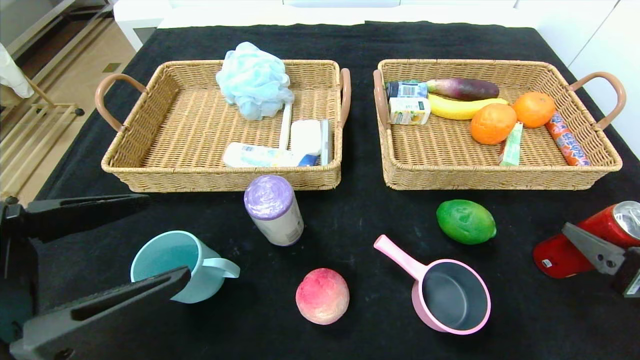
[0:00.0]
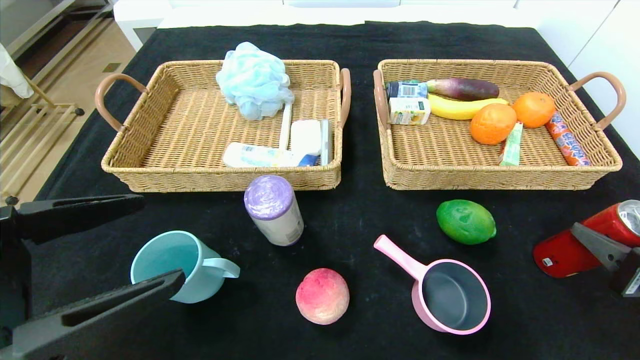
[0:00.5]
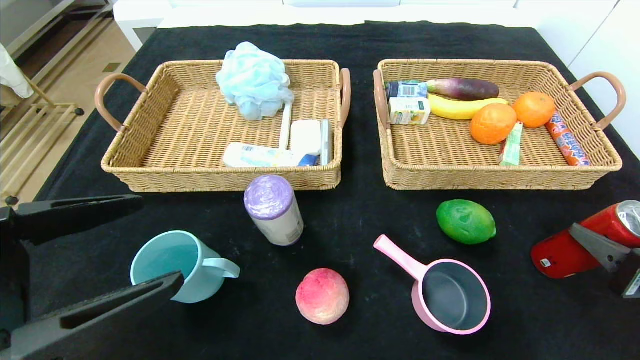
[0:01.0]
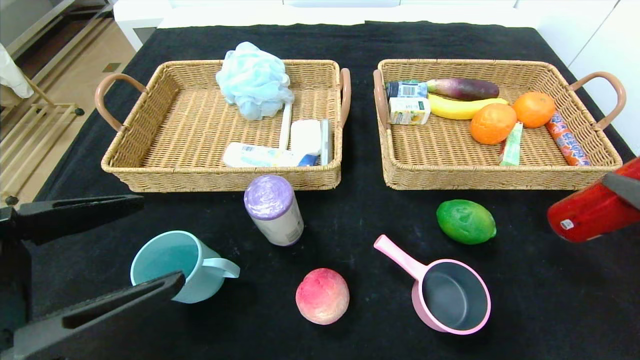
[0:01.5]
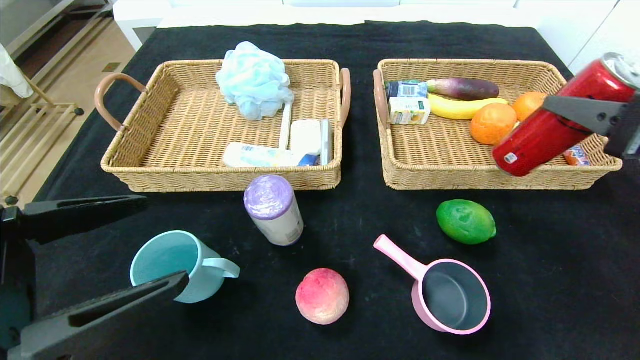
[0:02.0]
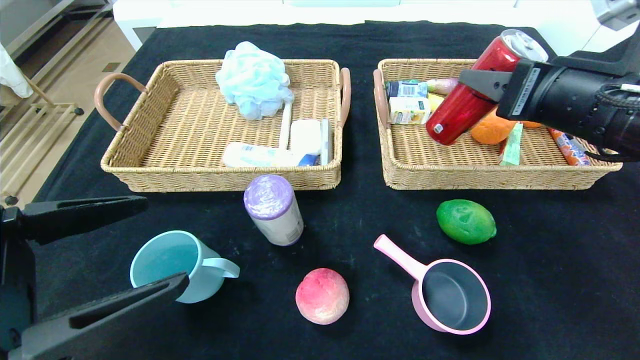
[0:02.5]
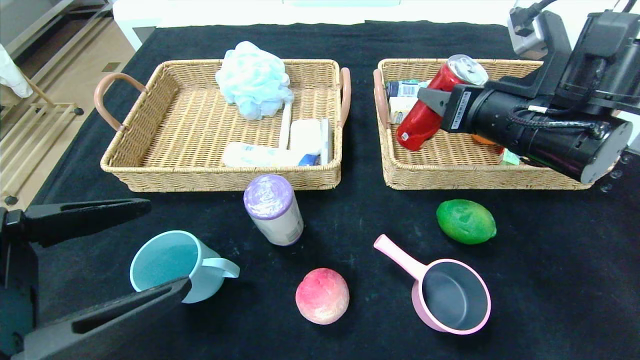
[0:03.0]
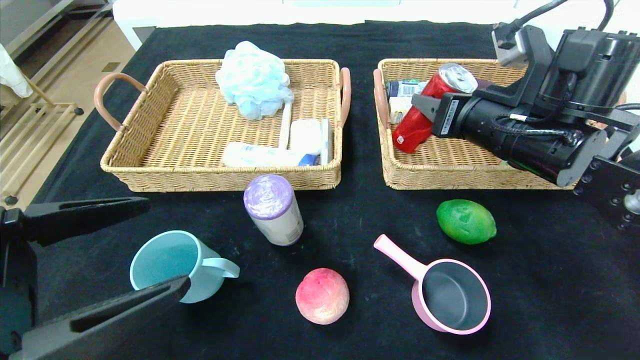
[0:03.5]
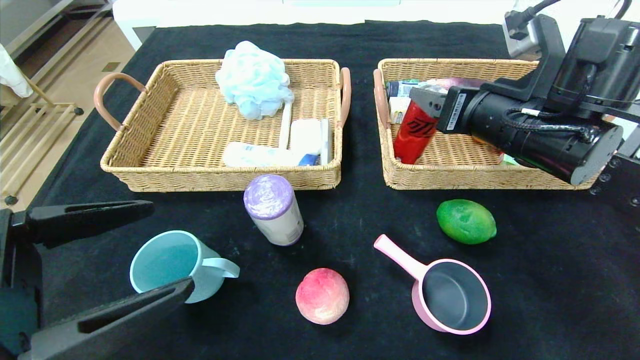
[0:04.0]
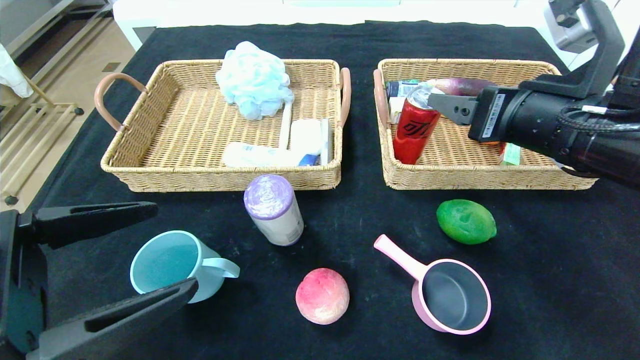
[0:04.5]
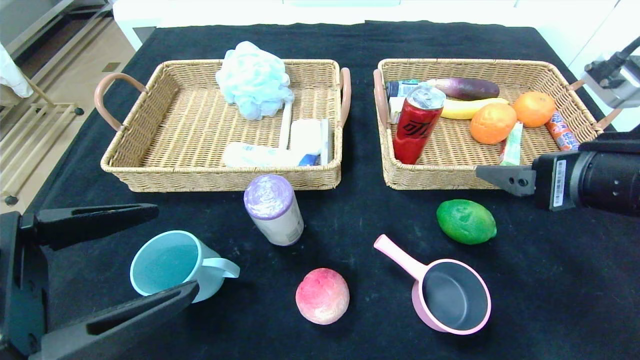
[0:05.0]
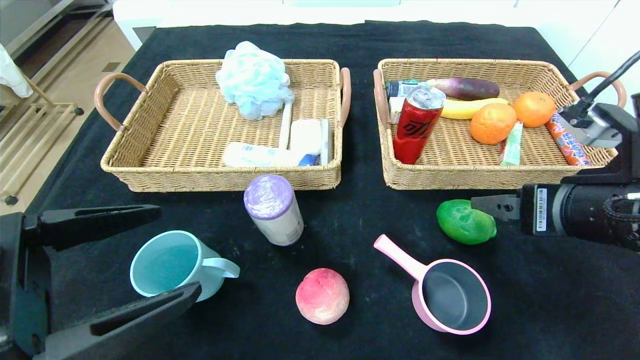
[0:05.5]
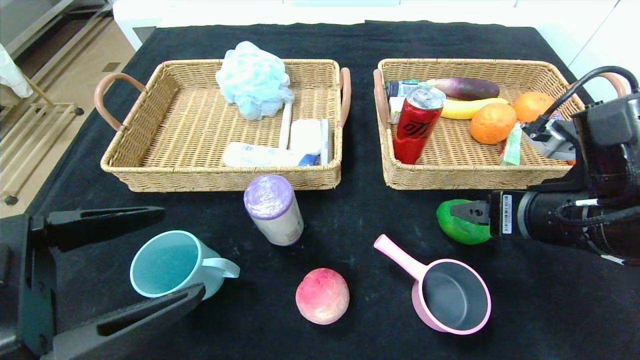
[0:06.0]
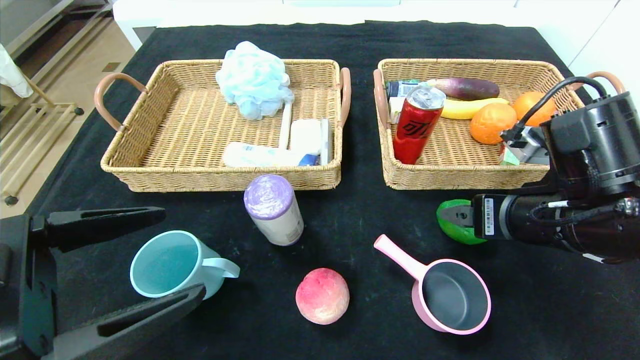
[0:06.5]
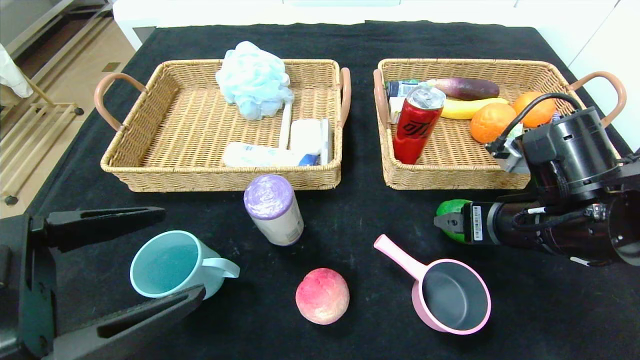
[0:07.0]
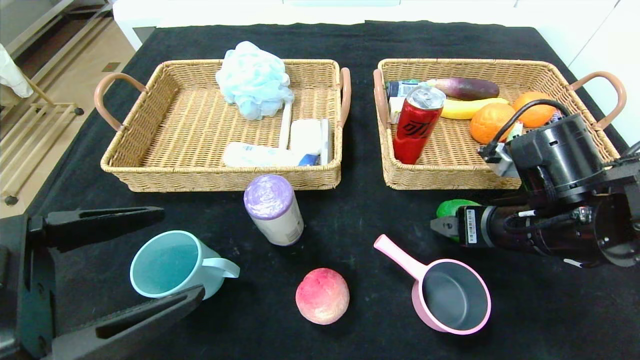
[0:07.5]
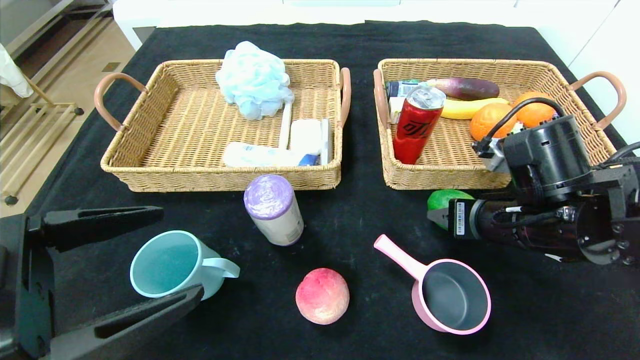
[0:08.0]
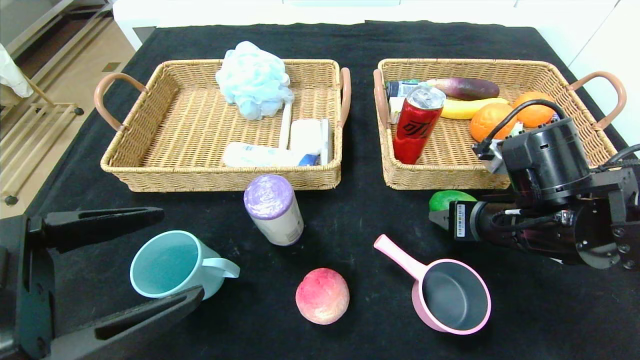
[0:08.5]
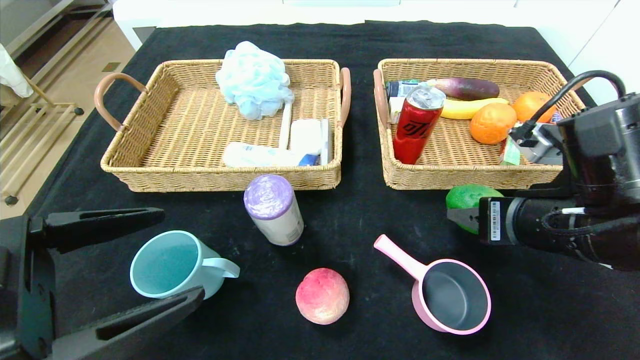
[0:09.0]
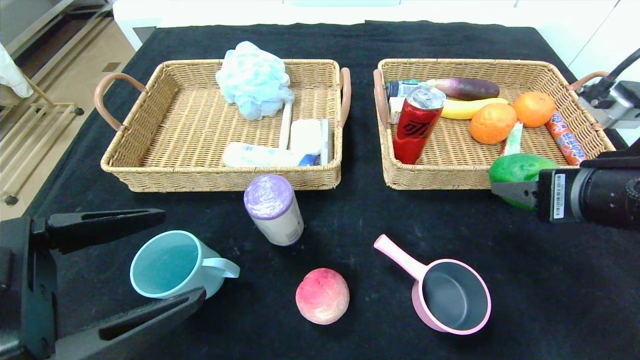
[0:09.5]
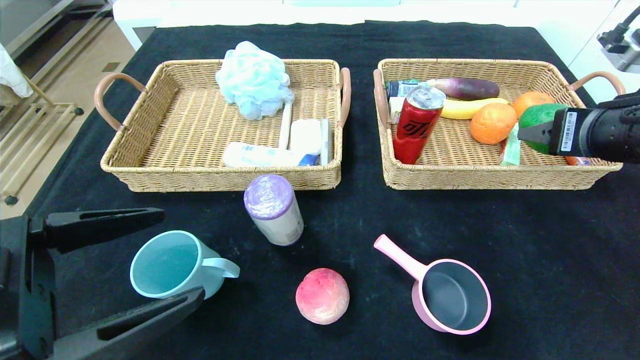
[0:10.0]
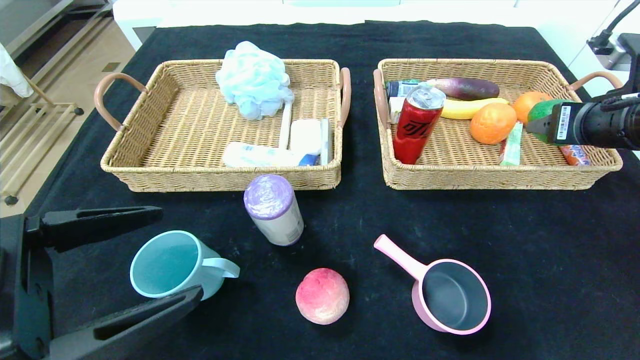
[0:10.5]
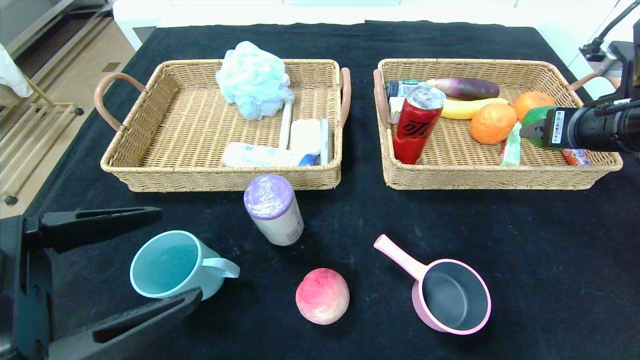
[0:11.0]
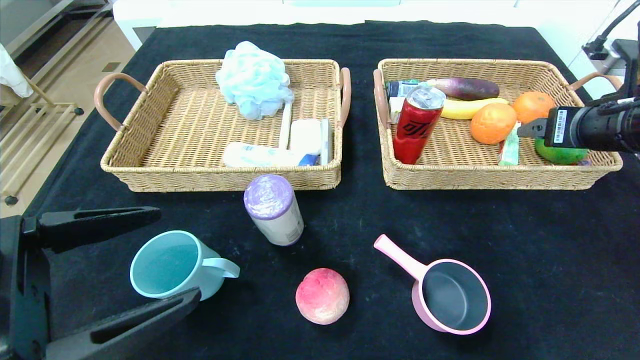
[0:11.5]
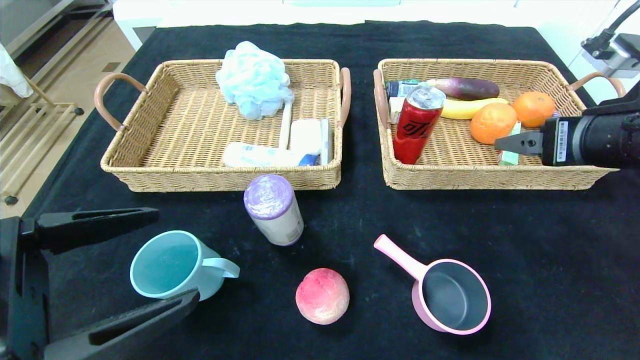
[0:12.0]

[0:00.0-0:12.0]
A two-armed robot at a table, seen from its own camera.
Step, 0:00.0 to 0:05.0: Pick up the canned cola and put it in the right basket.
0:00.0 to 0:02.0: The right gripper travels upward by some 15 cm.
0:02.0 to 0:04.0: The right gripper shifts about 15 cm forward and to the left.
0:04.0 to 0:06.0: The right gripper is displaced backward by approximately 10 cm.
0:06.0 to 0:08.0: The right gripper changes place by roughly 5 cm.
0:08.0 to 0:10.0: The right gripper is displaced upward and to the right by about 15 cm.
0:10.0 to 0:12.0: The grippers move only a little.

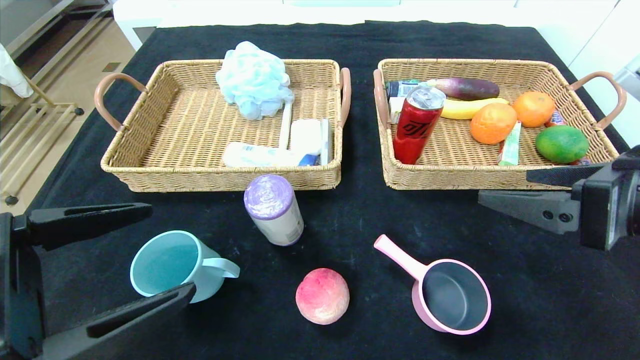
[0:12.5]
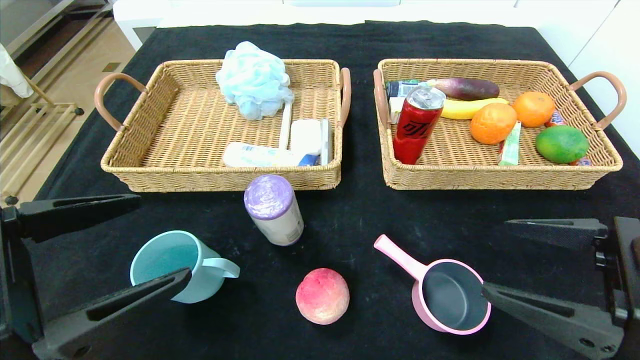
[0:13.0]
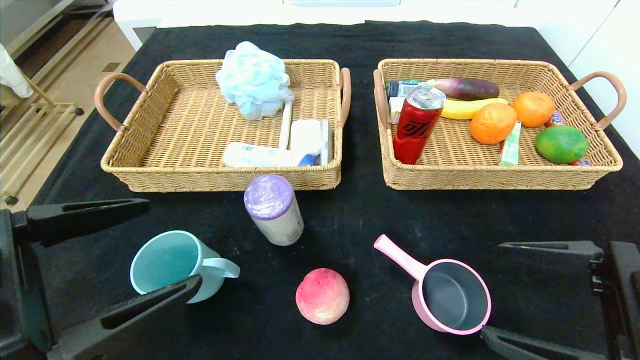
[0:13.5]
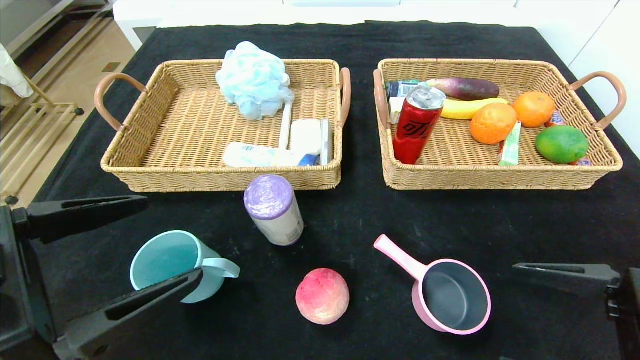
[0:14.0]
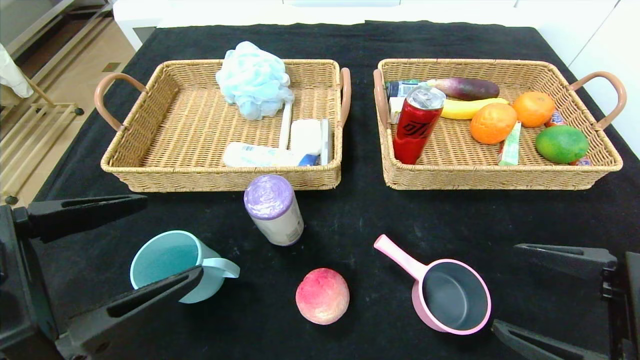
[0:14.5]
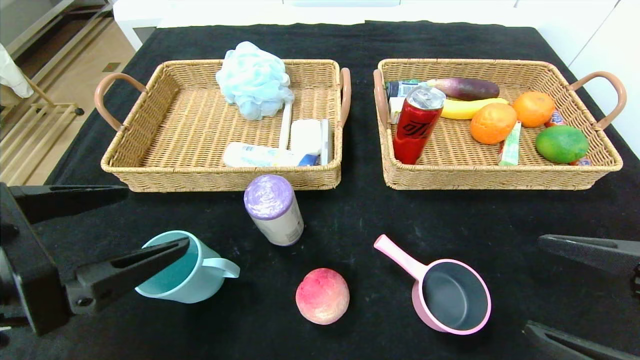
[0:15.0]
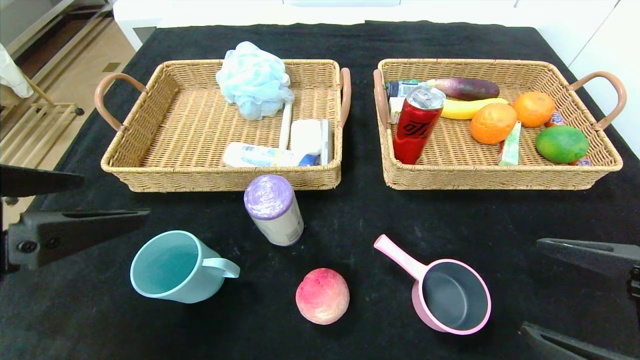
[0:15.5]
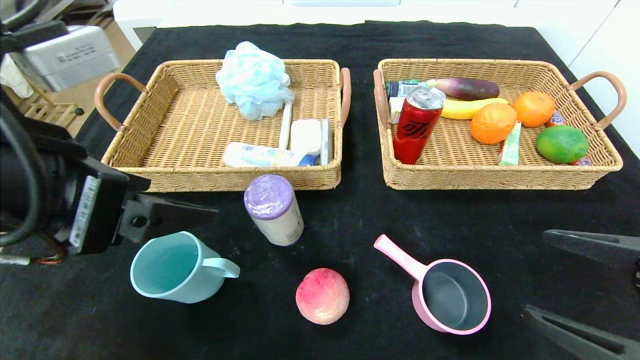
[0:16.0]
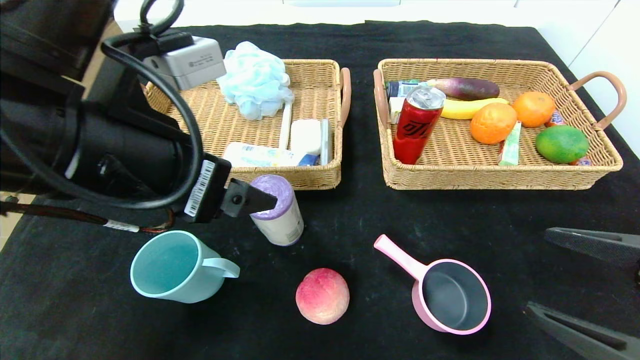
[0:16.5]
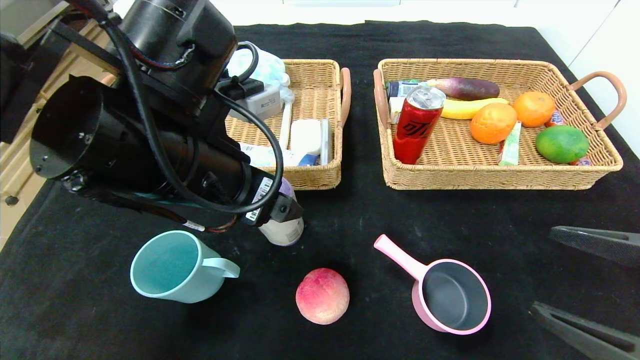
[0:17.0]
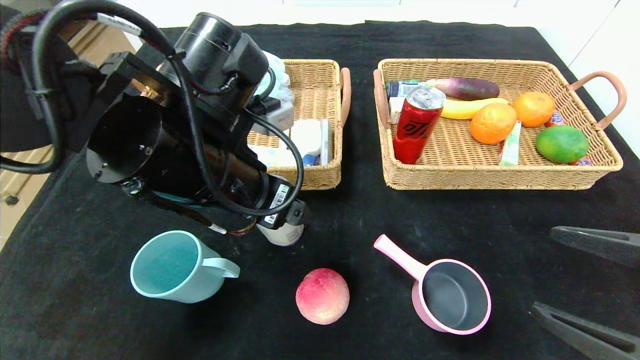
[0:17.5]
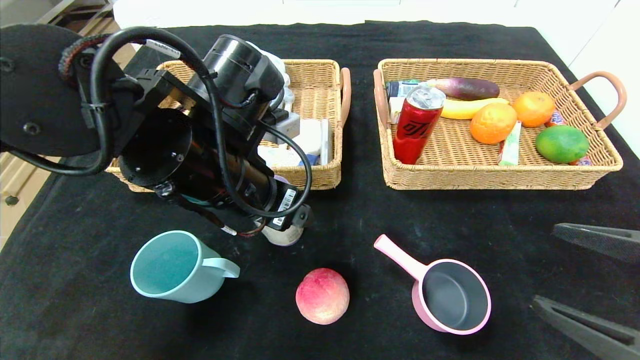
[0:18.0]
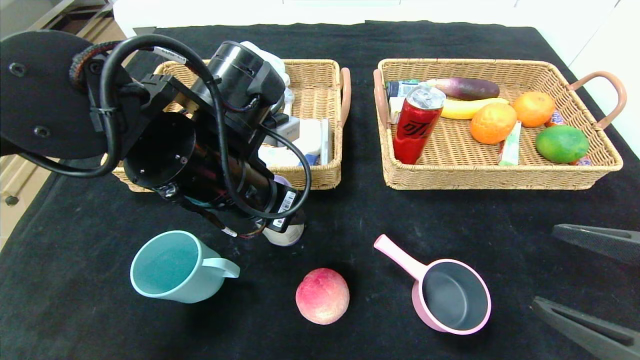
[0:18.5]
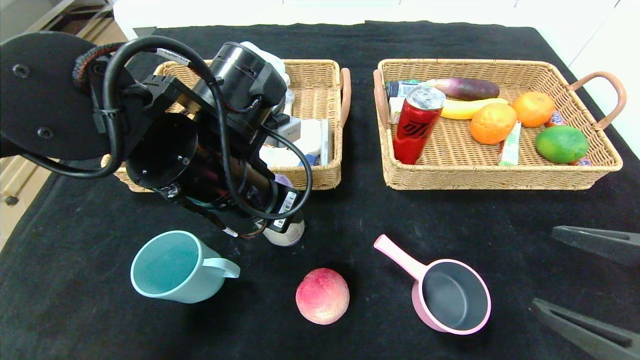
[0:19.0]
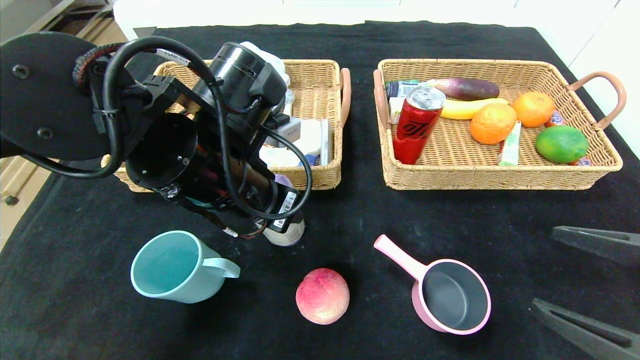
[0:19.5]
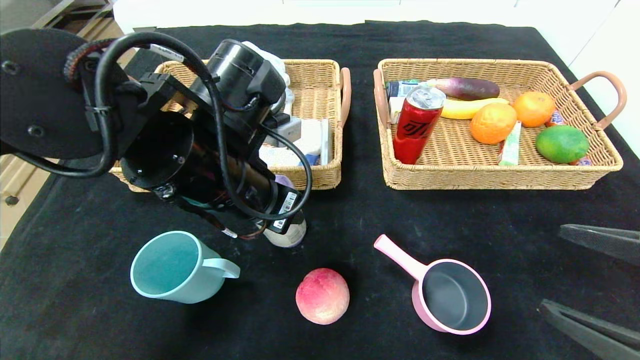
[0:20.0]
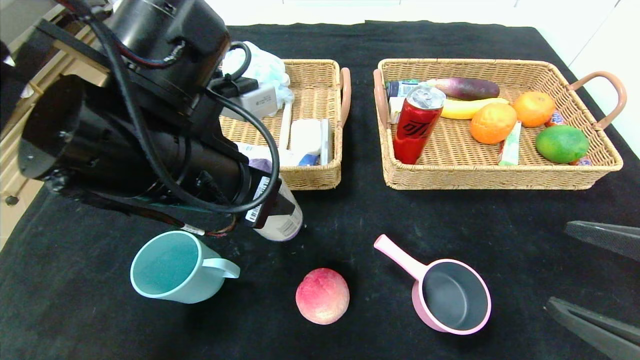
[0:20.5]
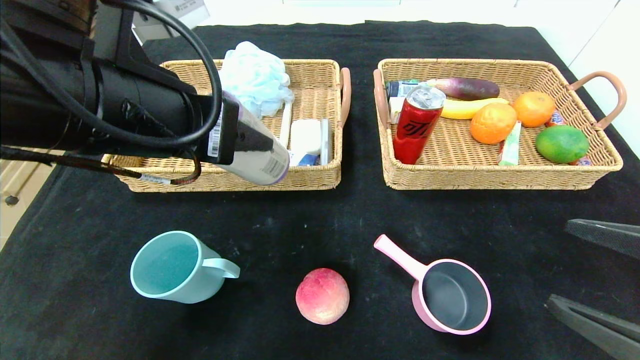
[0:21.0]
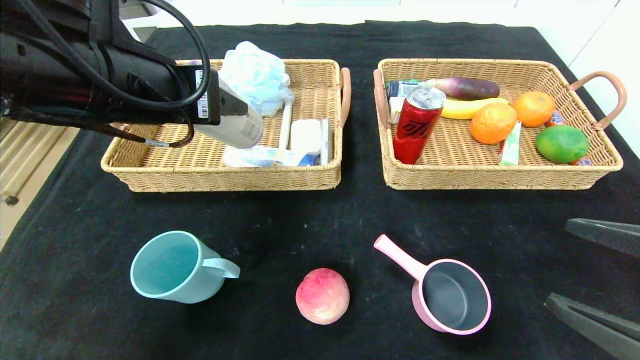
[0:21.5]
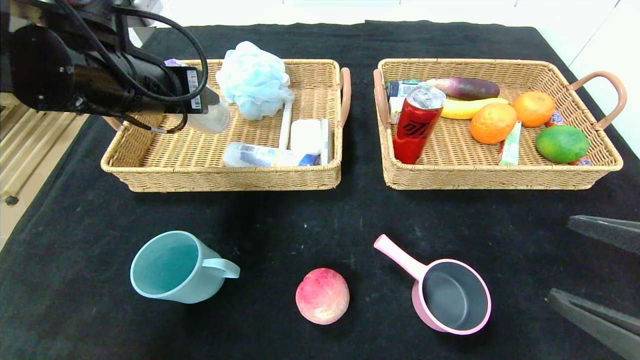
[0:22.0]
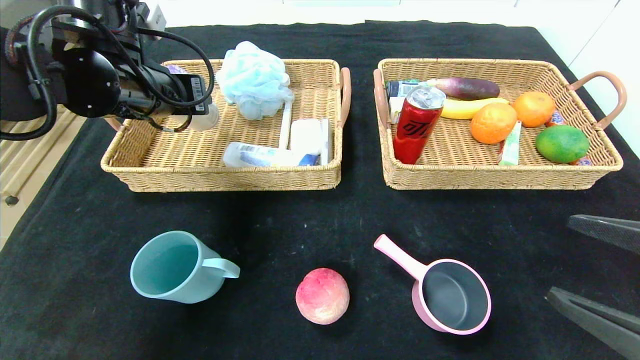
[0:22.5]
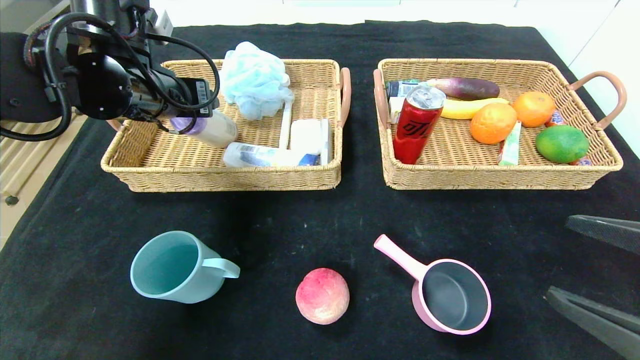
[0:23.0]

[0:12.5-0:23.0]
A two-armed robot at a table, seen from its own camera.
0:12.5 to 0:14.5: The right gripper heads downward, covering some 10 cm.
0:14.5 to 0:16.5: The left gripper goes some 15 cm forward, to the right and upward.
0:16.5 to 0:19.0: The left gripper goes roughly 10 cm forward and downward, and closes.
0:19.0 to 0:21.0: The left gripper travels upward and backward by about 10 cm.
0:21.0 to 0:23.0: The left gripper goes approximately 15 cm forward and to the left.
